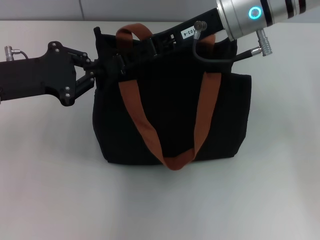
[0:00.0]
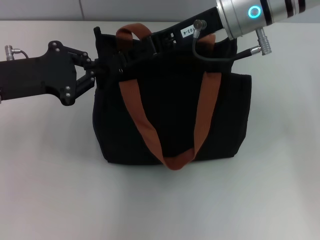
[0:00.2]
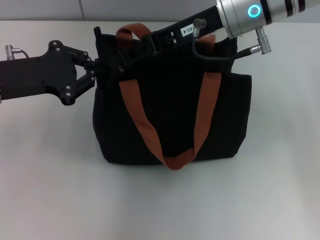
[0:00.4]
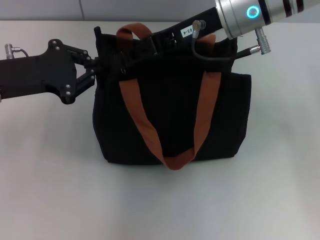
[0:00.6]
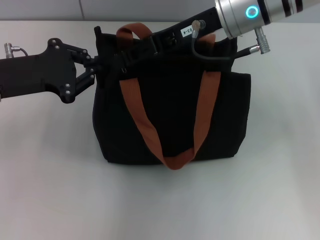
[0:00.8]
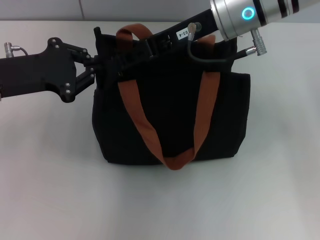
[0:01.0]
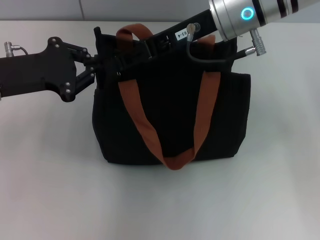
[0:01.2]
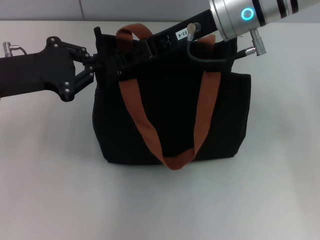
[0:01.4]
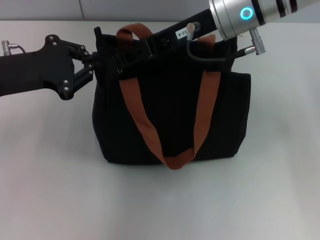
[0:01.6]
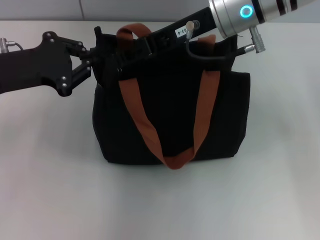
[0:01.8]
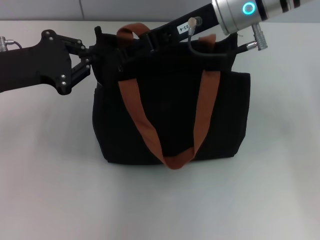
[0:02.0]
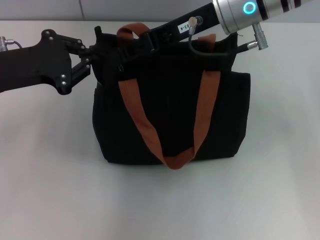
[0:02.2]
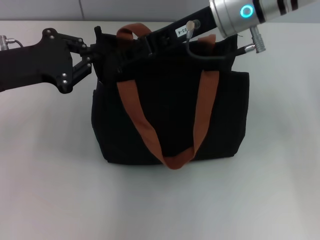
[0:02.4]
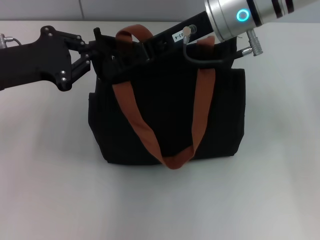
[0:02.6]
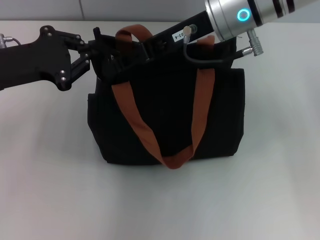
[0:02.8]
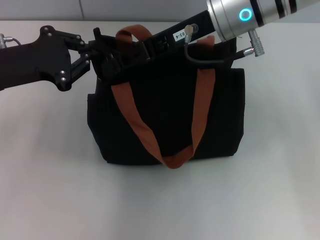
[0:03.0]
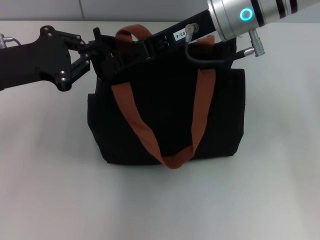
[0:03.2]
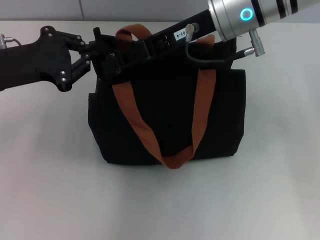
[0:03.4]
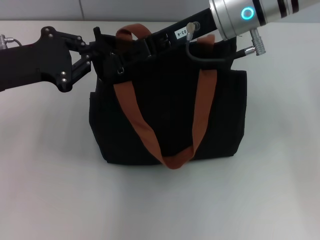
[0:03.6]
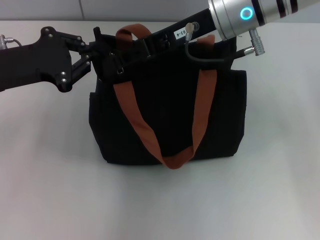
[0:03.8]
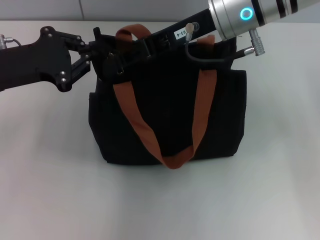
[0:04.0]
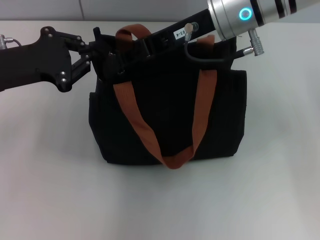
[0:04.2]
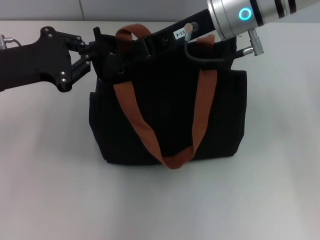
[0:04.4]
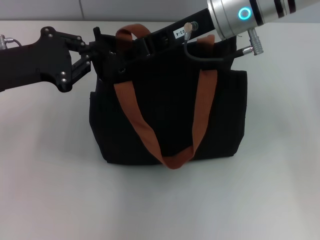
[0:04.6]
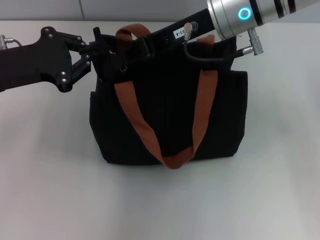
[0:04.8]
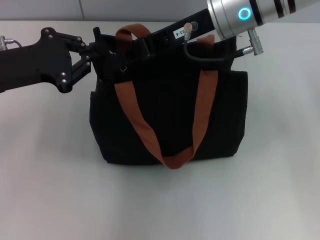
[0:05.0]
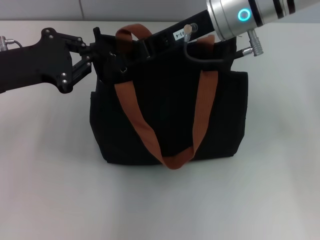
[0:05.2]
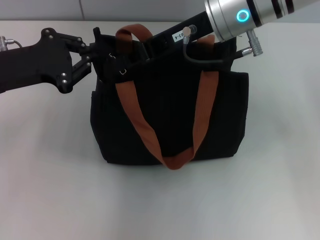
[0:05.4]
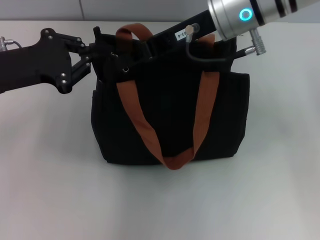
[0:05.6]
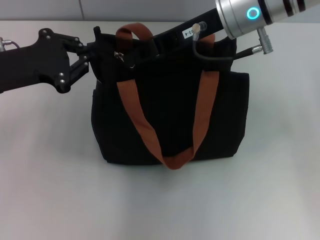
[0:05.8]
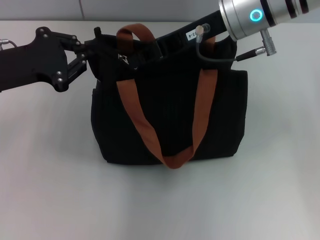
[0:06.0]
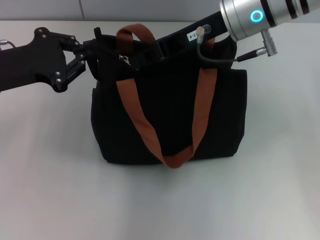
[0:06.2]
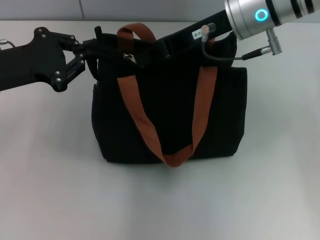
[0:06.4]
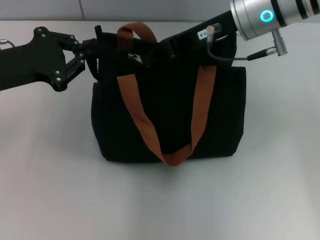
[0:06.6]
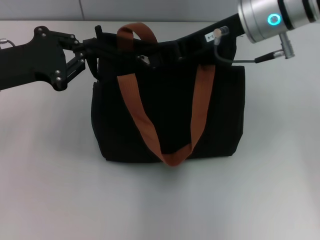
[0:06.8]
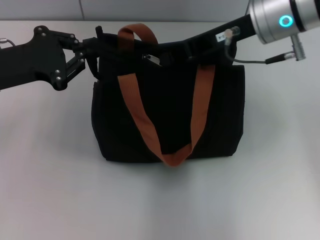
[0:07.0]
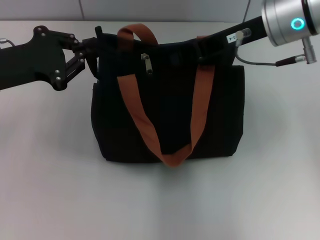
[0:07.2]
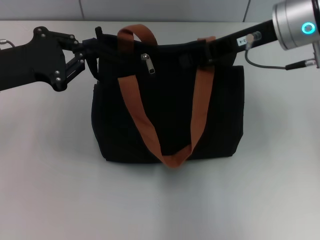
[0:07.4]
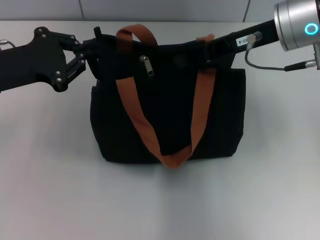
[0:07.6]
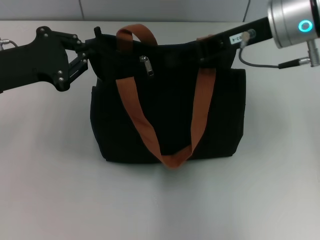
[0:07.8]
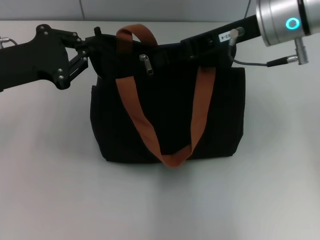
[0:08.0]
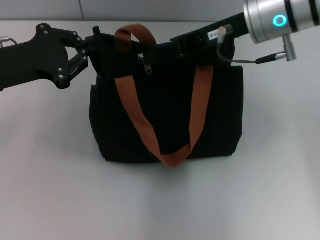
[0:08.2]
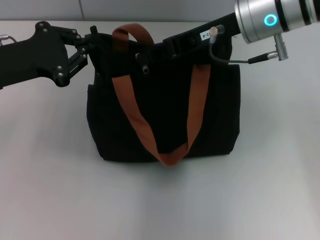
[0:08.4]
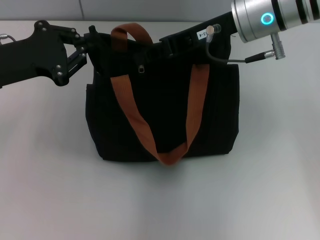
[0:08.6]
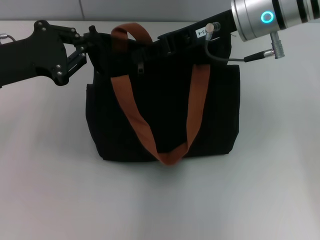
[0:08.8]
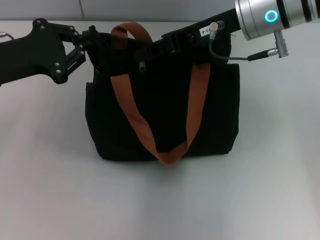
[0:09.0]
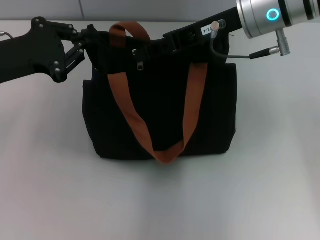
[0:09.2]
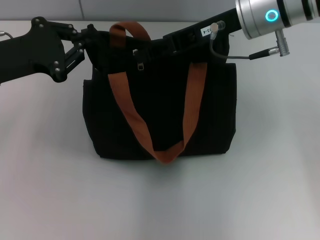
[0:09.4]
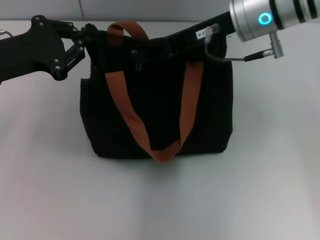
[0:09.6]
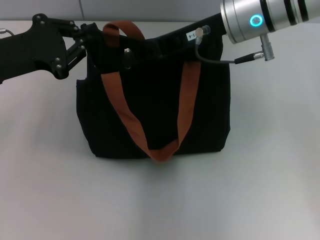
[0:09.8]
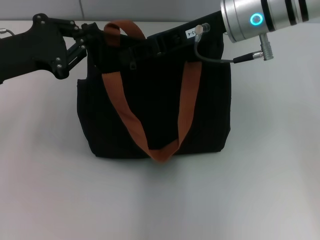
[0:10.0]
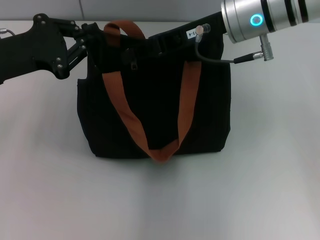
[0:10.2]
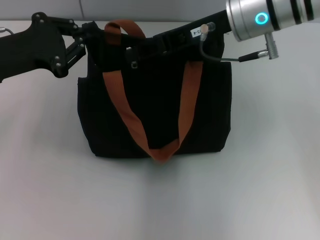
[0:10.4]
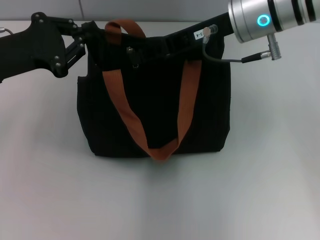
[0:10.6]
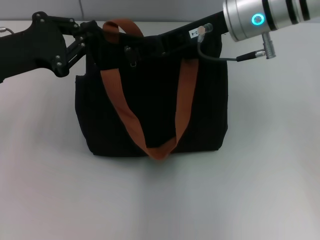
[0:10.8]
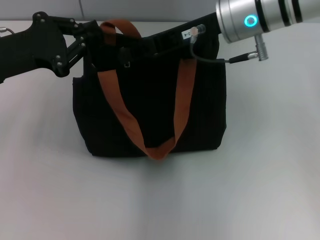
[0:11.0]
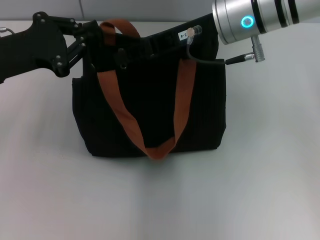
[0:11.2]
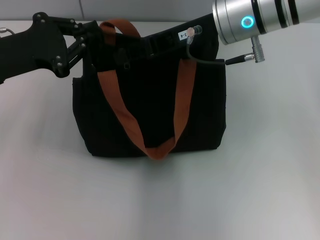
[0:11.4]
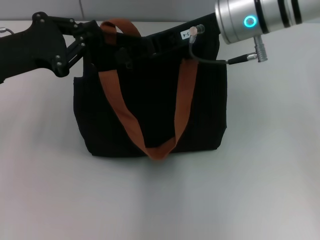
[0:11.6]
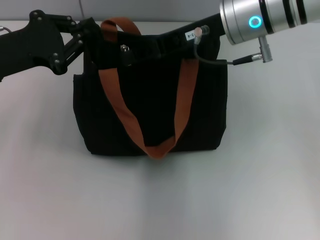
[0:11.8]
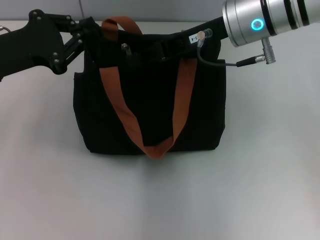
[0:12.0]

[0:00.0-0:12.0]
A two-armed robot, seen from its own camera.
0:00.0 to 0:01.6: The right gripper closes.
0:01.6 to 0:06.0: Neither gripper changes place.
0:06.0 to 0:07.6: The right gripper is displaced to the right by about 5 cm.
0:07.6 to 0:10.4: The grippers make only small movements.
0:10.4 to 0:12.0: The grippers move only a little.

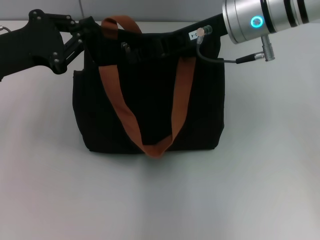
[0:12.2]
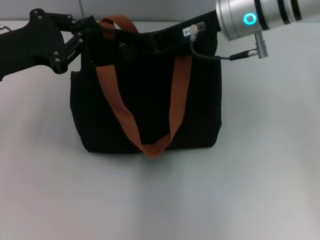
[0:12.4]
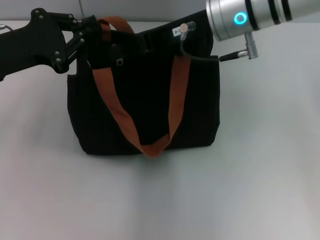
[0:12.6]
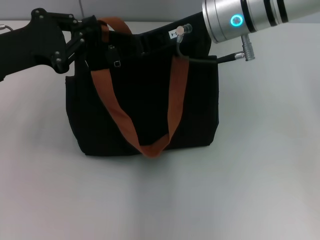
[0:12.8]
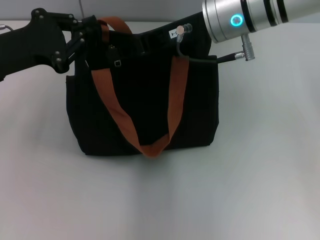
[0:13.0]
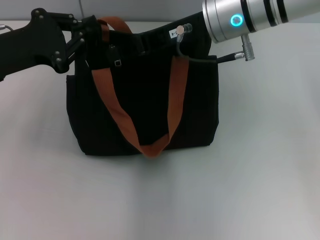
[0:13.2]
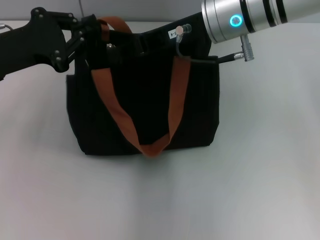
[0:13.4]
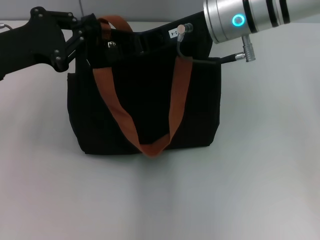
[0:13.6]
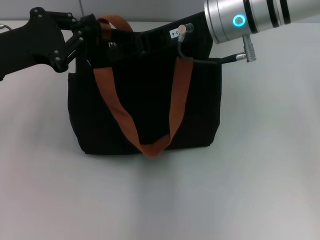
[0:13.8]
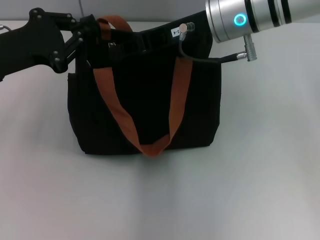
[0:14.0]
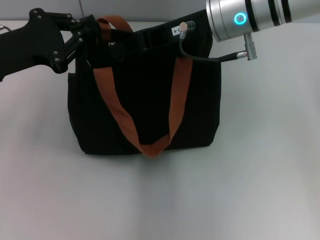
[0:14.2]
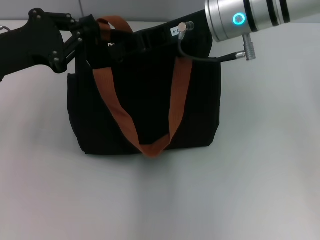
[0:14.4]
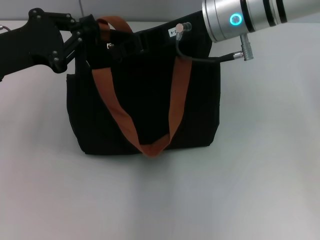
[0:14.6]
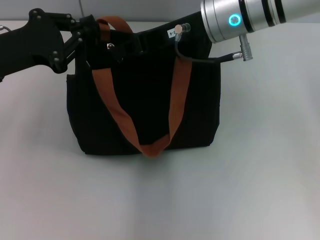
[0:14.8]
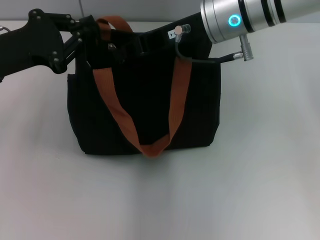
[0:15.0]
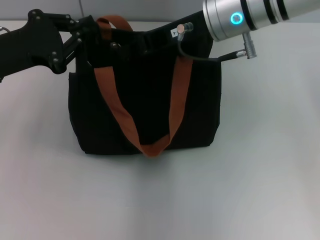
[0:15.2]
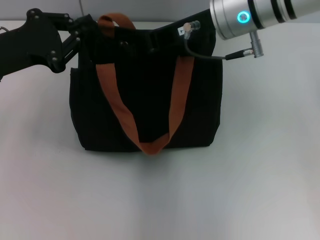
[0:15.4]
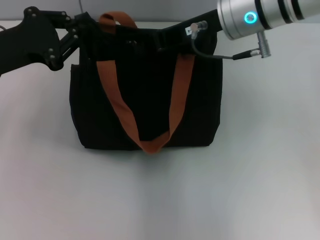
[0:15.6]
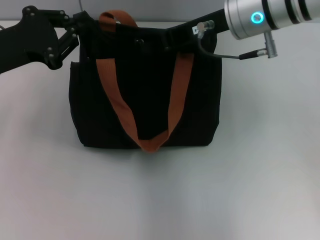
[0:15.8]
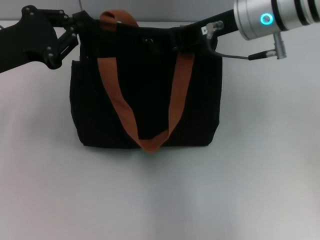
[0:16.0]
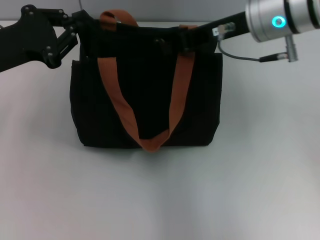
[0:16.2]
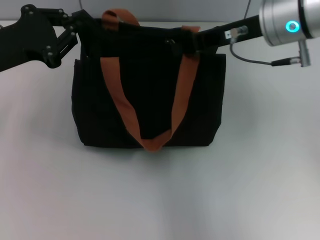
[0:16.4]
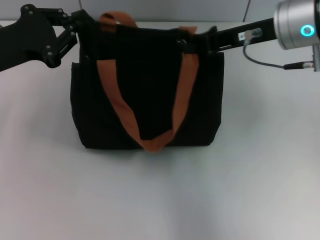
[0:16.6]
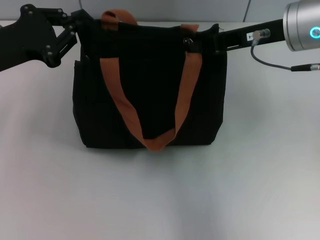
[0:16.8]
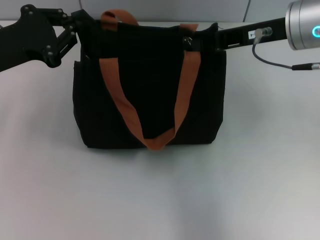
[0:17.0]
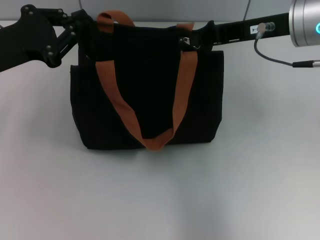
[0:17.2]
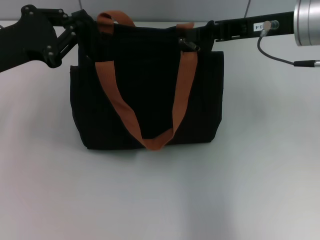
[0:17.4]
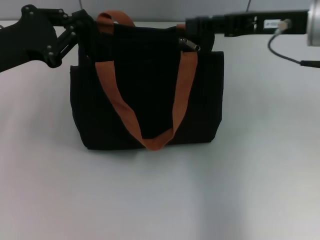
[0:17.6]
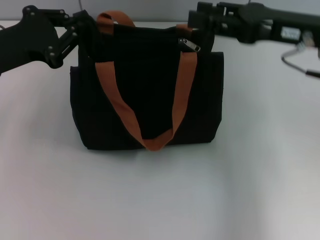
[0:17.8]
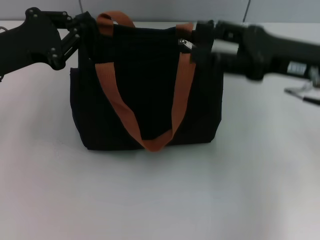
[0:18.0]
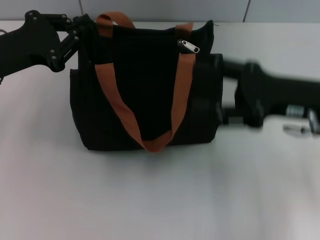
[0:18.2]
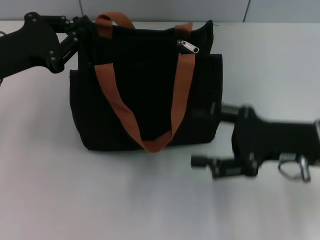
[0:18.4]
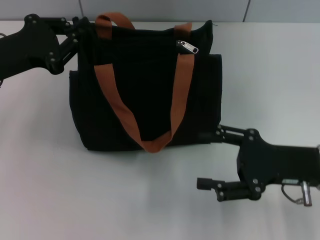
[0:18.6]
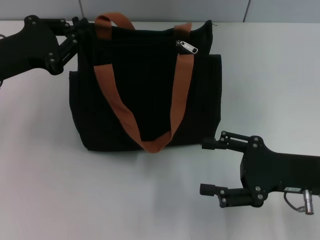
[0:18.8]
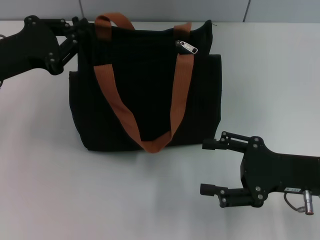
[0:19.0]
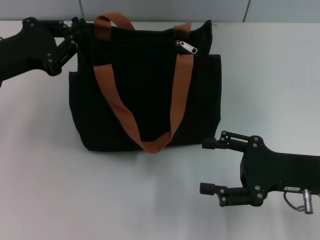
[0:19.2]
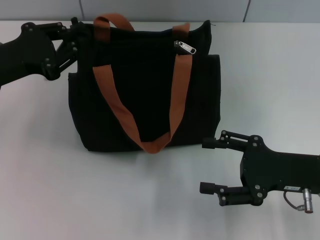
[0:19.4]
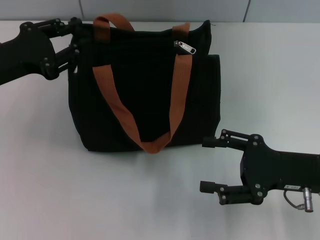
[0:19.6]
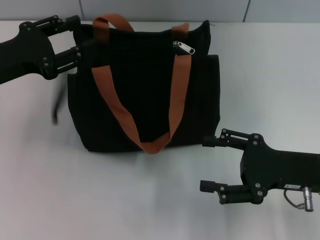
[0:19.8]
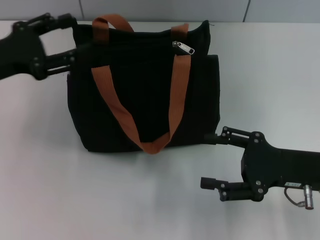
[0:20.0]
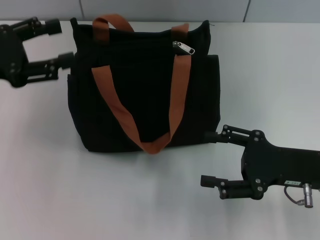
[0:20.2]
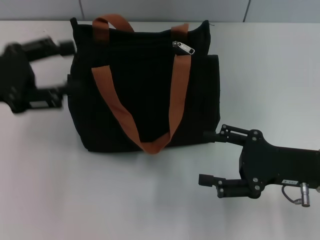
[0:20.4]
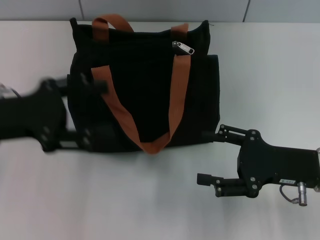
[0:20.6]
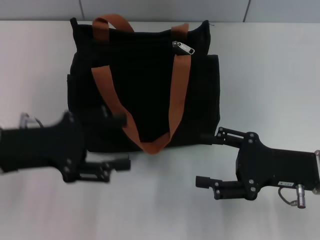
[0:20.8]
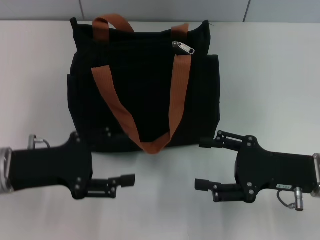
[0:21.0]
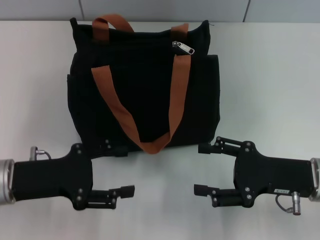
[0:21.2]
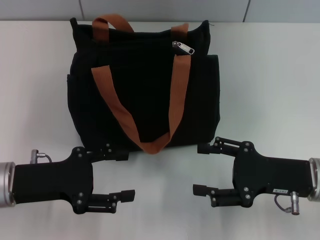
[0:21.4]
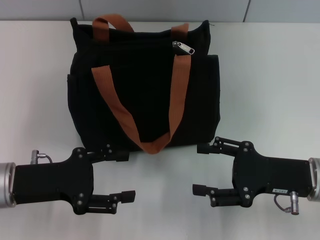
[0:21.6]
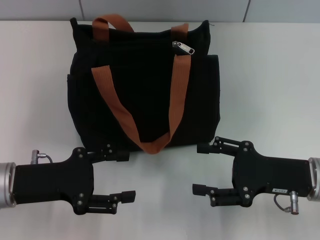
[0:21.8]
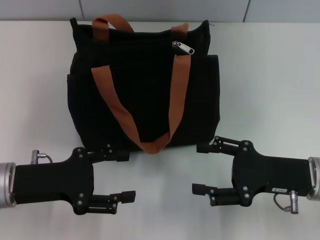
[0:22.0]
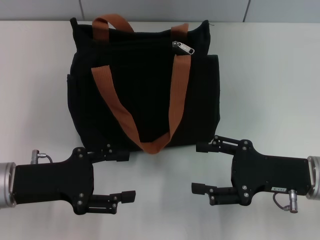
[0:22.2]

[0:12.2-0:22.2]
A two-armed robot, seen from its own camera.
Step, 0:12.2 to 0:17.8: Pull up the zipper with your right hand.
0:12.2 to 0:13.6: The grippers stay close to where they were, moving slightly.
0:13.6 to 0:15.0: Both grippers stay about where they are.
0:15.0 to 0:16.4: The right gripper is displaced to the right by about 5 cm.
0:16.4 to 0:18.0: The right gripper travels to the right and backward by roughly 10 cm, and opens its fingers.
0:18.0 to 0:19.4: The right gripper travels downward and backward by approximately 15 cm, and opens its fingers.
0:19.4 to 0:20.8: The left gripper is displaced backward by roughly 5 cm, and opens up.
0:20.8 to 0:22.2: The grippers move only a little.
